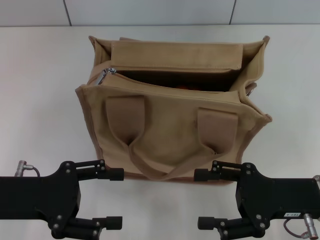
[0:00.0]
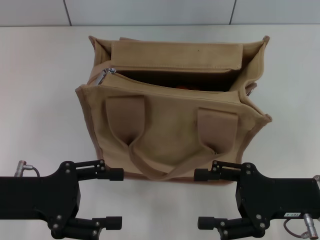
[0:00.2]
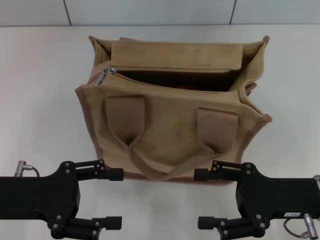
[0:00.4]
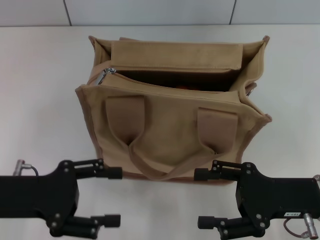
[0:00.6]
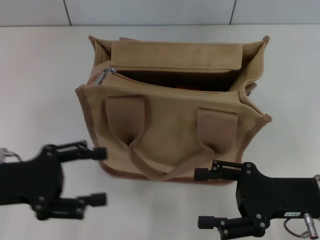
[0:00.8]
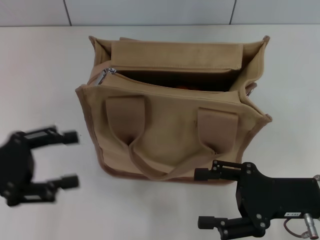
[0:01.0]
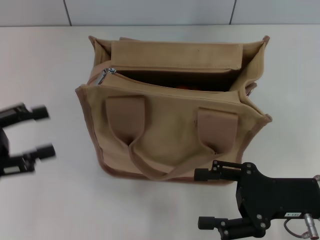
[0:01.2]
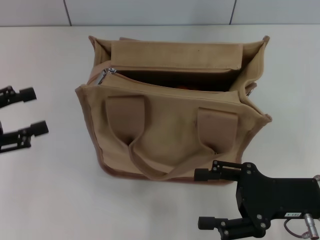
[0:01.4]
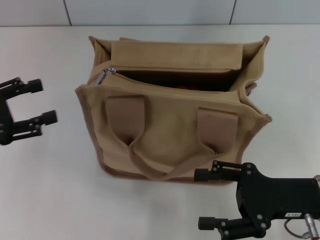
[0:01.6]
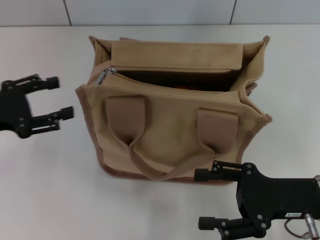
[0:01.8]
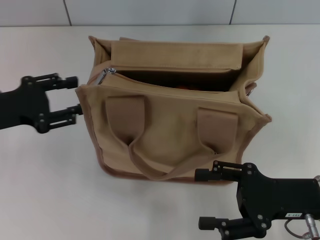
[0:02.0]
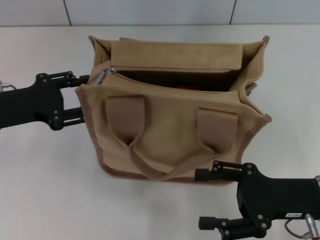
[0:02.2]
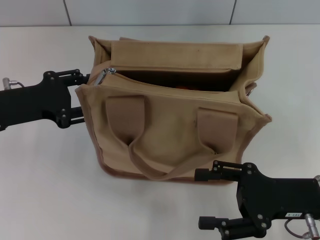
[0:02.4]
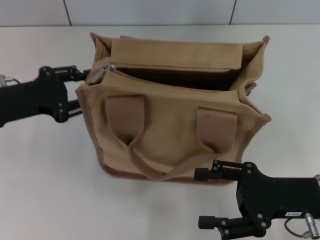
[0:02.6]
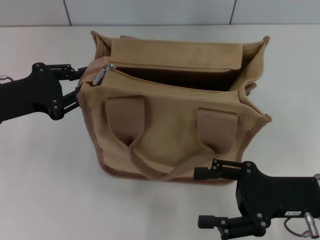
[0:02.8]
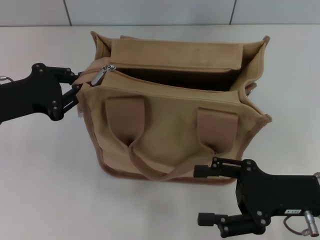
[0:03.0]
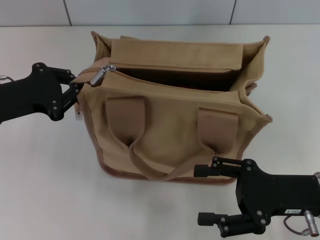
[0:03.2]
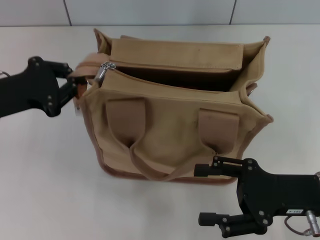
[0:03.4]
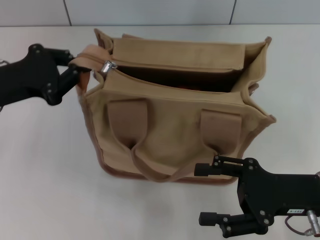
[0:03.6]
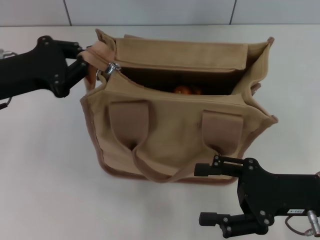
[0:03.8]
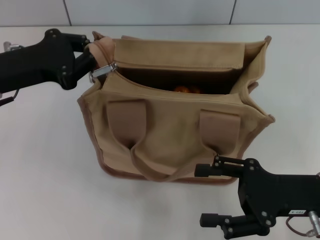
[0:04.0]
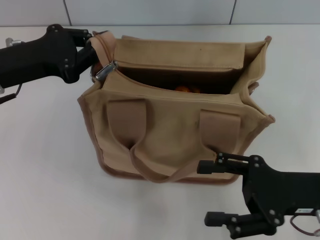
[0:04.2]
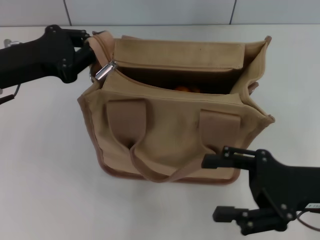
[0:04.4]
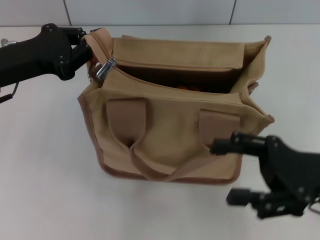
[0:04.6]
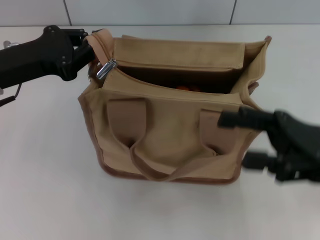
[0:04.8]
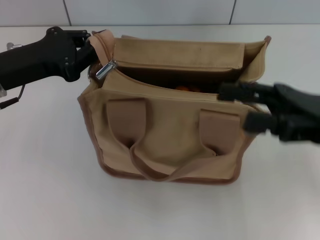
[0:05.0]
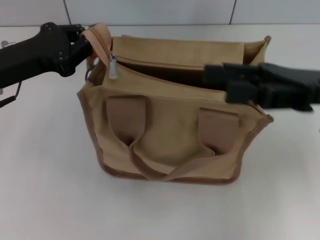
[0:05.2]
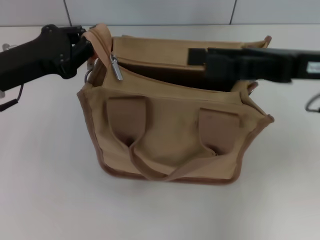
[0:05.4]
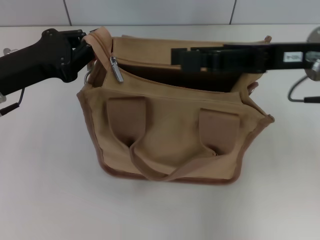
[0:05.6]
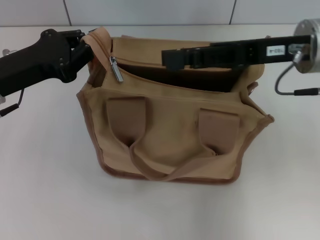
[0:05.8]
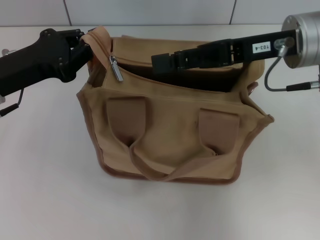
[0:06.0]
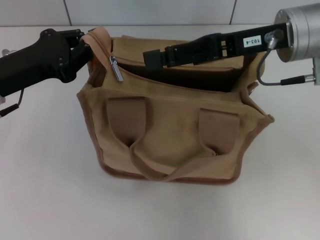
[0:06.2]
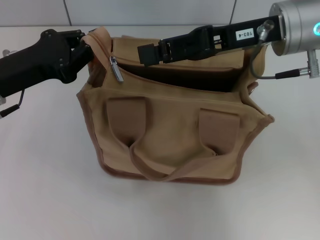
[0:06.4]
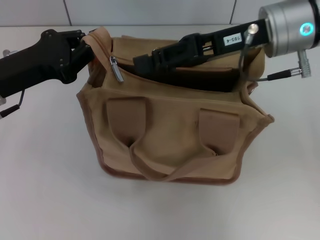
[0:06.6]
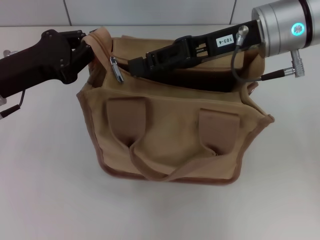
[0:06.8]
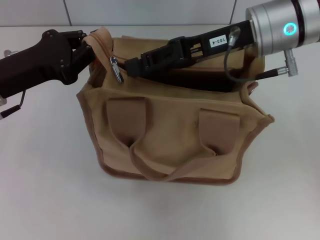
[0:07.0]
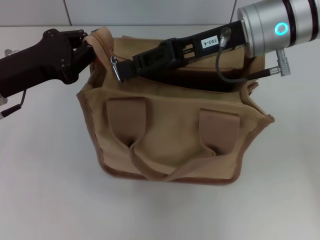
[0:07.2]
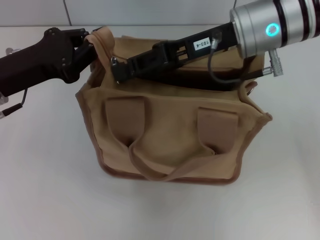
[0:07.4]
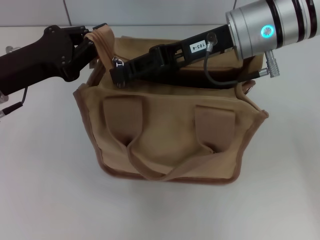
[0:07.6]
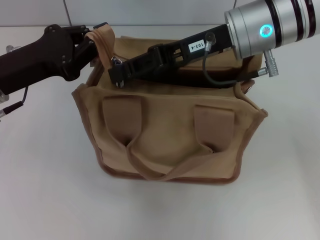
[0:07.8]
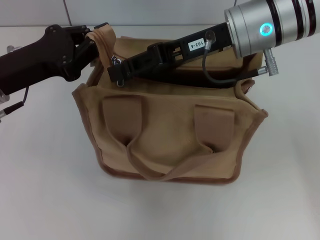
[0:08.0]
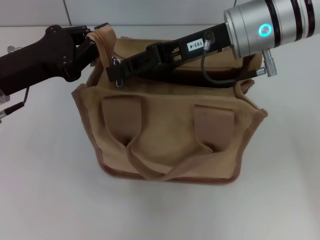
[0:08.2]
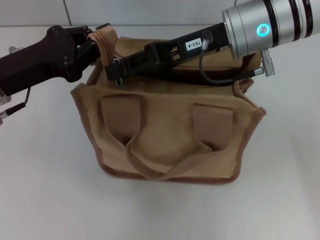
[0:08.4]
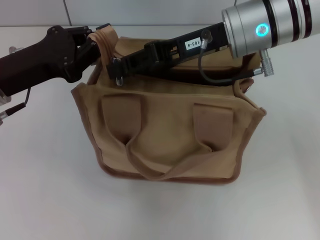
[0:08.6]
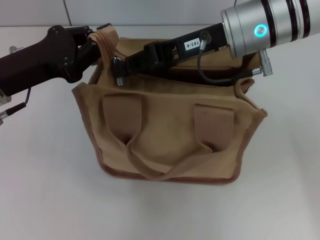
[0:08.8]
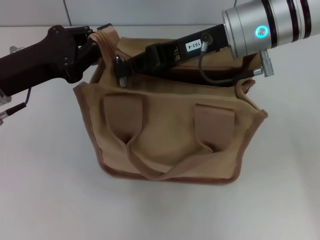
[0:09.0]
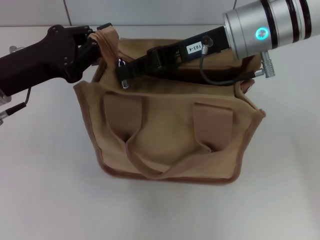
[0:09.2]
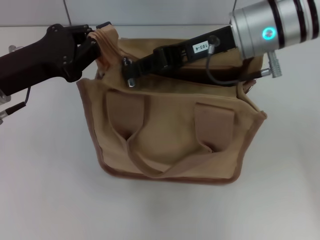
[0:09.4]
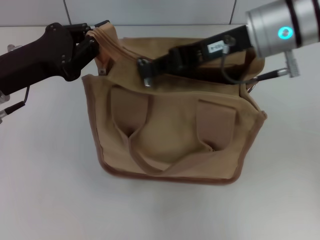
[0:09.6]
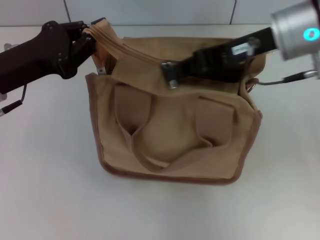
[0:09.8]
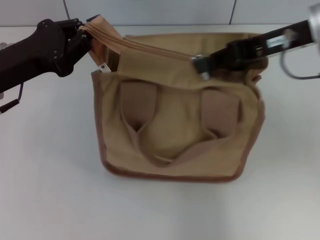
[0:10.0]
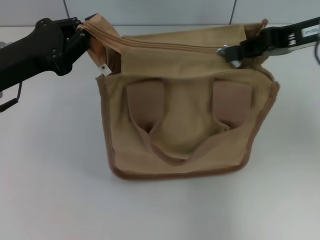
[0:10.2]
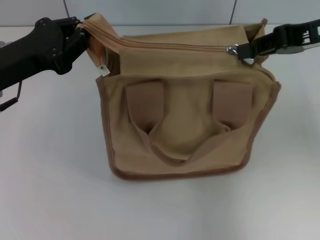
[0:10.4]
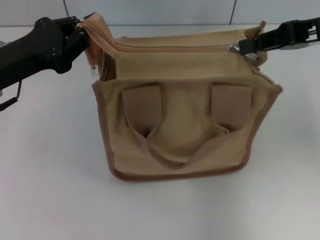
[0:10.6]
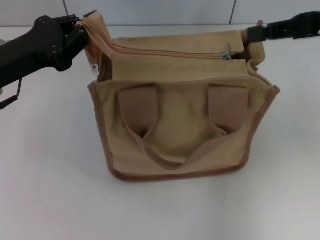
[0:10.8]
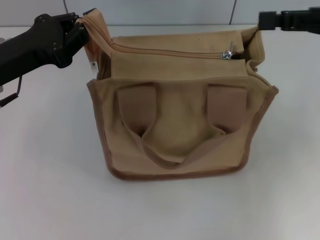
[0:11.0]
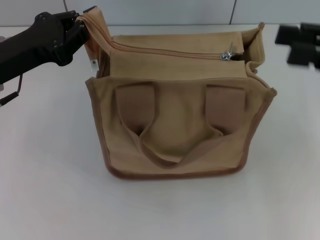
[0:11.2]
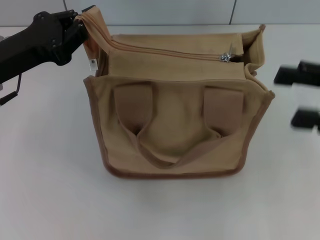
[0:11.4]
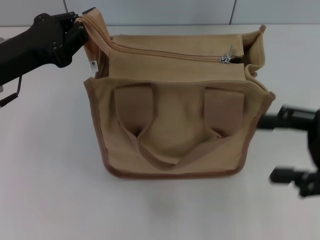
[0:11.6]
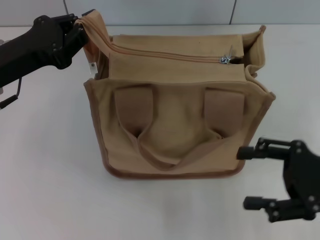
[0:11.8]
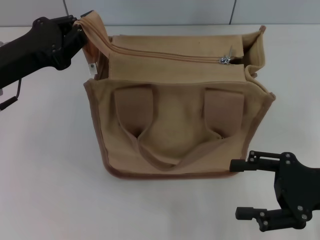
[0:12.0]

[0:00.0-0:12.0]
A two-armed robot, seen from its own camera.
Step, 0:00.0 to 0:10.6: Pull up the zipper with your right hand.
0:00.0 to 0:01.6: The left gripper heads to the left, covering roughly 10 cm.
0:01.6 to 0:03.0: The left gripper is displaced to the right by approximately 5 cm, and closes up.
0:03.0 to 0:04.4: The left gripper shifts by about 5 cm.
0:04.4 to 0:06.0: The right gripper moves forward, upward and to the left, approximately 20 cm.
0:06.0 to 0:07.6: The right gripper travels to the left by approximately 5 cm, and closes up.
0:07.6 to 0:09.0: The two grippers keep their place.
0:09.0 to 0:10.4: The right gripper shifts approximately 15 cm to the right.
0:10.4 to 0:12.0: The right gripper travels downward and backward by approximately 20 cm, and opens.

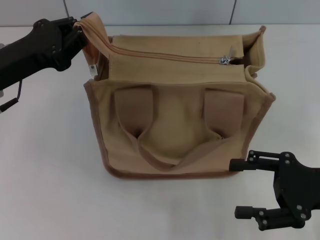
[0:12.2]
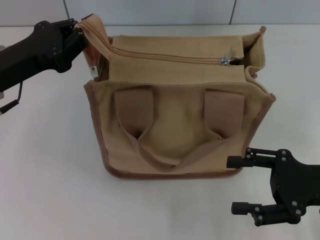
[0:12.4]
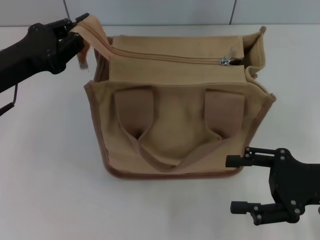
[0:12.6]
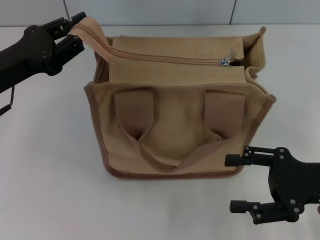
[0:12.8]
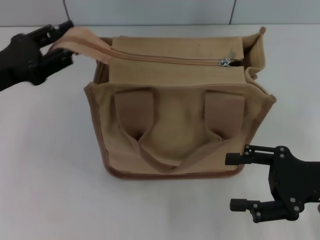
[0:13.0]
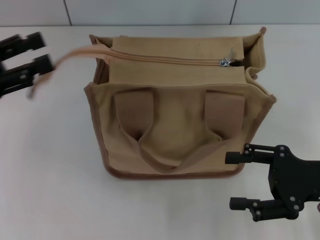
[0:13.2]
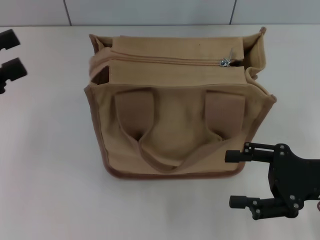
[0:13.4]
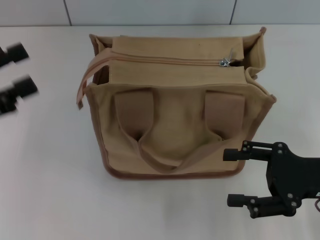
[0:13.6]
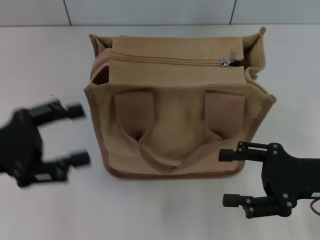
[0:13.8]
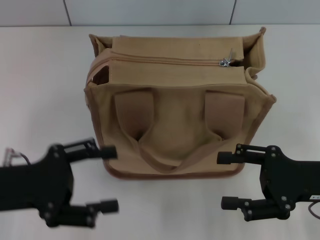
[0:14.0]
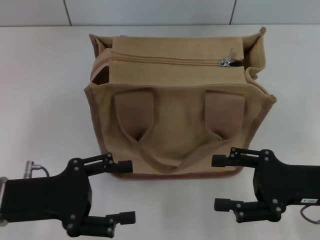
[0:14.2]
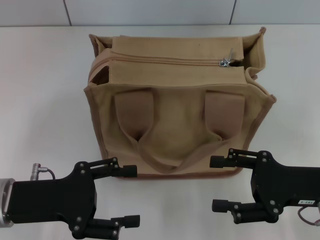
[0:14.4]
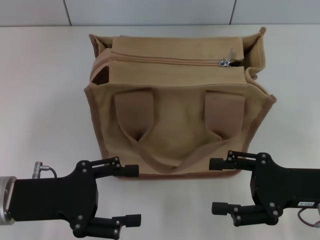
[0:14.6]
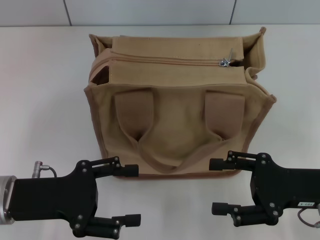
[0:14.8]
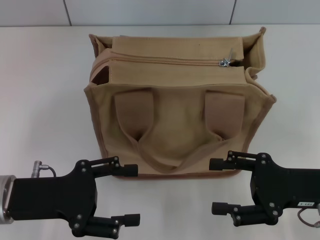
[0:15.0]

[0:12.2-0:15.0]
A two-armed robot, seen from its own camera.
0:12.2 to 0:13.6: The left gripper travels to the left and backward by some 10 cm, and opens its fingers.
0:13.6 to 0:15.0: The left gripper shifts approximately 10 cm to the right and downward.
